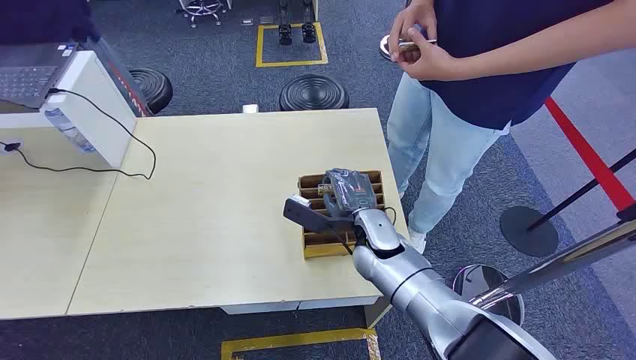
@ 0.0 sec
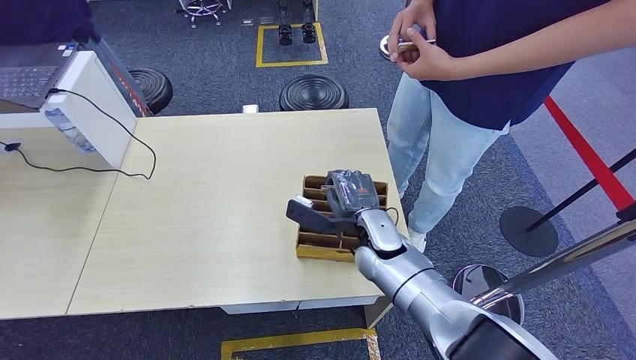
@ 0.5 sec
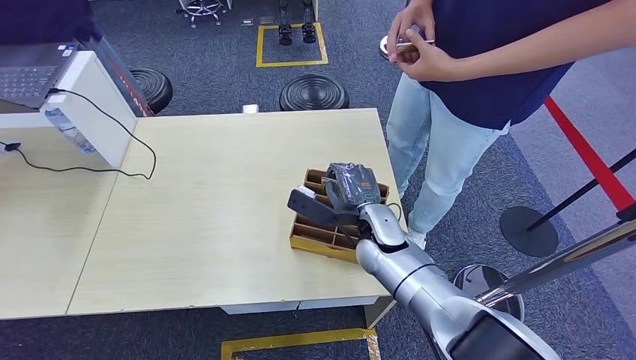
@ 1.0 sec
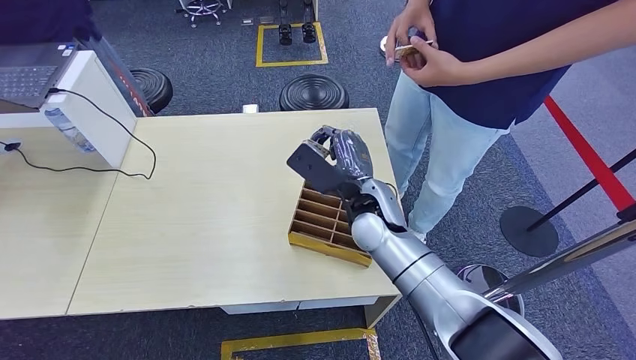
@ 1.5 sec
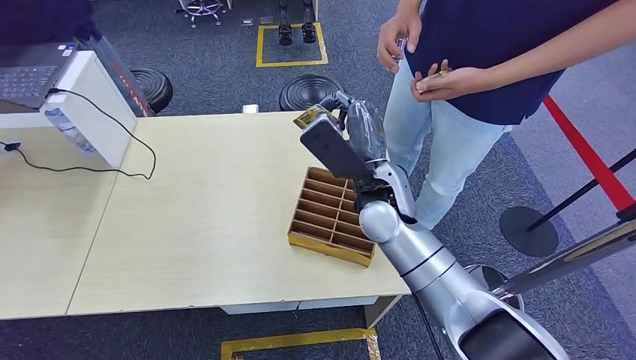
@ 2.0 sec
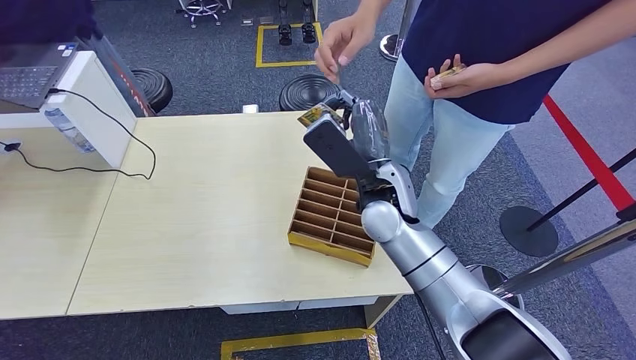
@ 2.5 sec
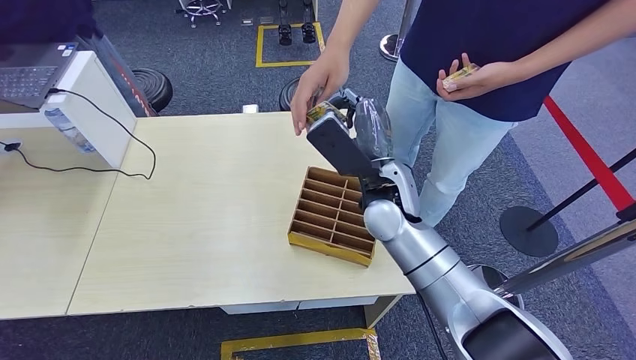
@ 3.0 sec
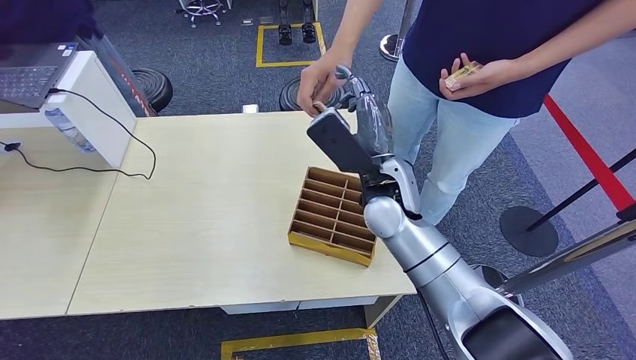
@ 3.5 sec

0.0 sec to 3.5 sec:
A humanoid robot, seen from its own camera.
Step, 0.0 sec to 1.0 sec: Pick up the room card from the card holder.
Step, 1.5 sec to 3.5 sec: Hand the room card to the target.
2.0 sec to 3.5 sec: Neither hand changes place.
